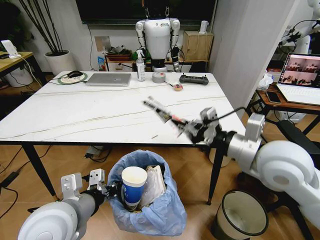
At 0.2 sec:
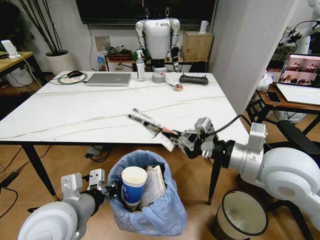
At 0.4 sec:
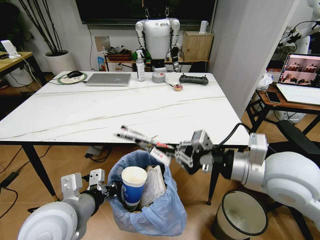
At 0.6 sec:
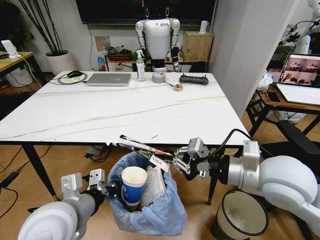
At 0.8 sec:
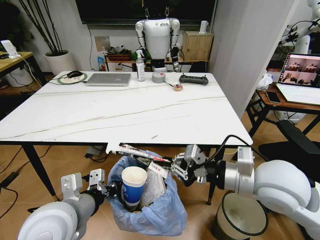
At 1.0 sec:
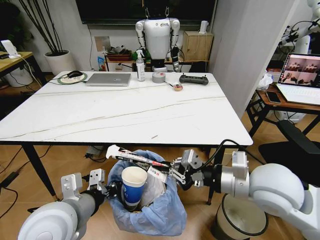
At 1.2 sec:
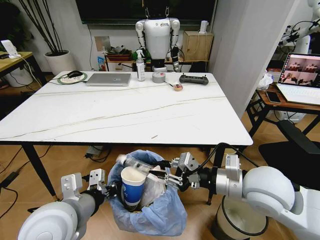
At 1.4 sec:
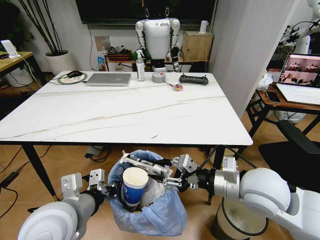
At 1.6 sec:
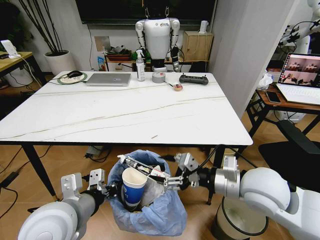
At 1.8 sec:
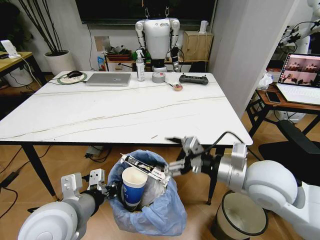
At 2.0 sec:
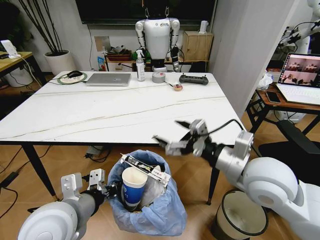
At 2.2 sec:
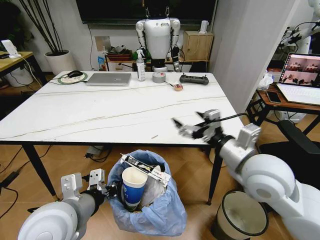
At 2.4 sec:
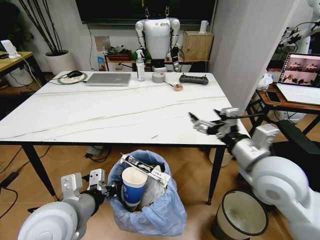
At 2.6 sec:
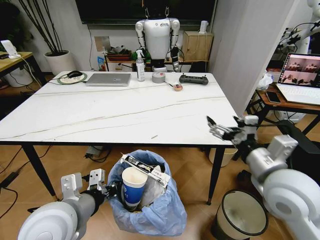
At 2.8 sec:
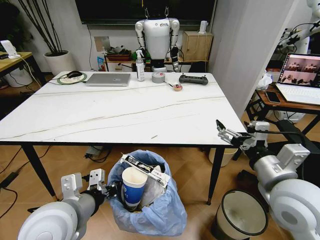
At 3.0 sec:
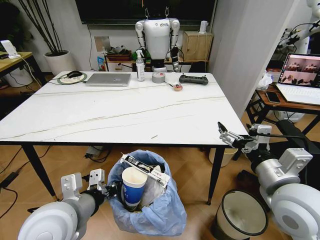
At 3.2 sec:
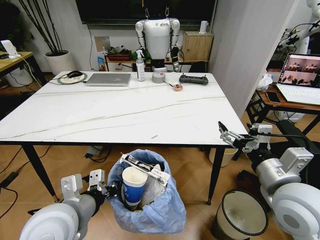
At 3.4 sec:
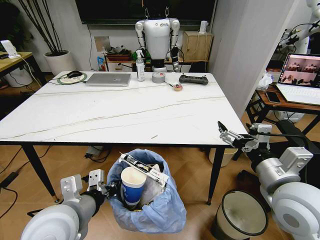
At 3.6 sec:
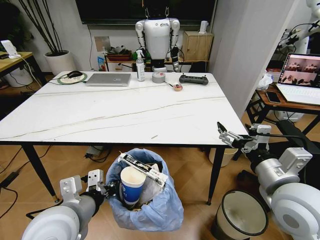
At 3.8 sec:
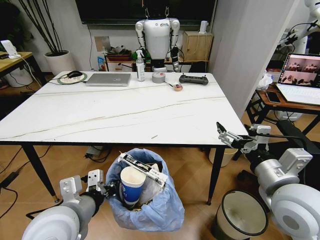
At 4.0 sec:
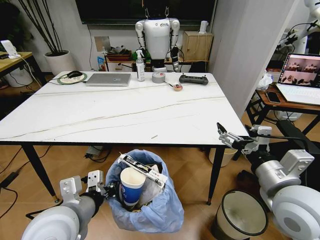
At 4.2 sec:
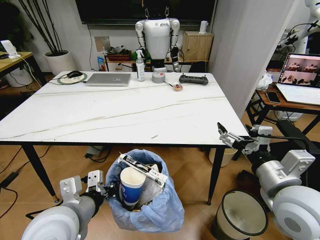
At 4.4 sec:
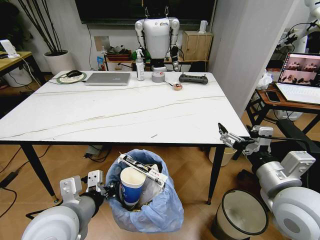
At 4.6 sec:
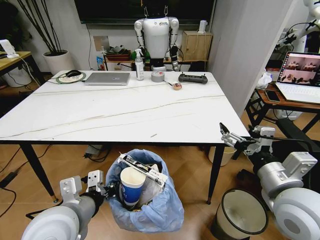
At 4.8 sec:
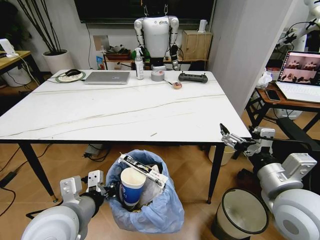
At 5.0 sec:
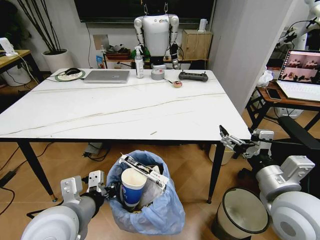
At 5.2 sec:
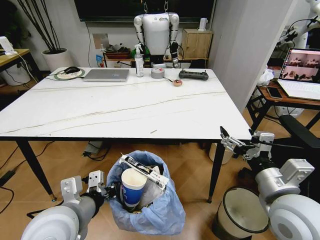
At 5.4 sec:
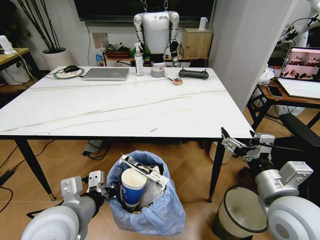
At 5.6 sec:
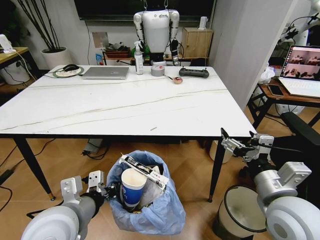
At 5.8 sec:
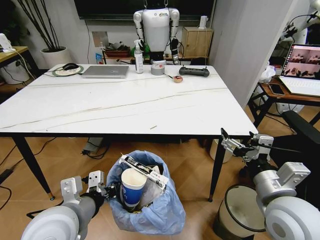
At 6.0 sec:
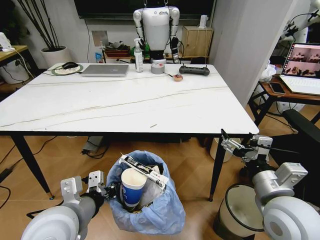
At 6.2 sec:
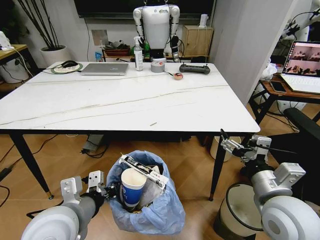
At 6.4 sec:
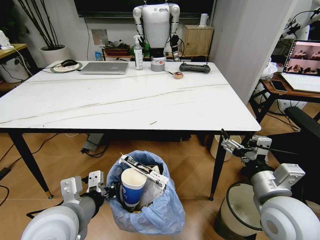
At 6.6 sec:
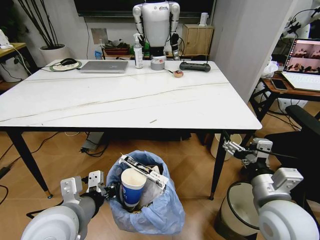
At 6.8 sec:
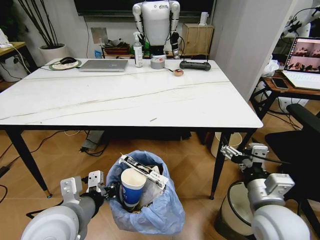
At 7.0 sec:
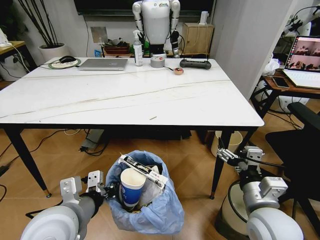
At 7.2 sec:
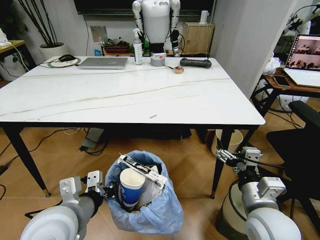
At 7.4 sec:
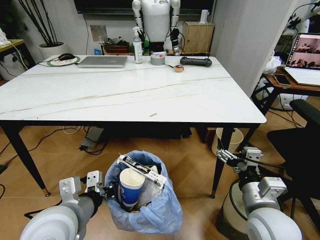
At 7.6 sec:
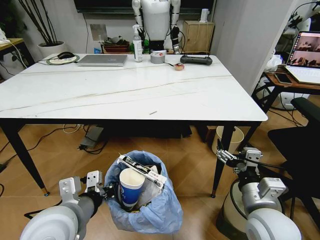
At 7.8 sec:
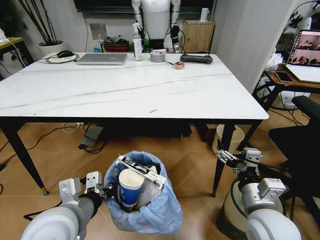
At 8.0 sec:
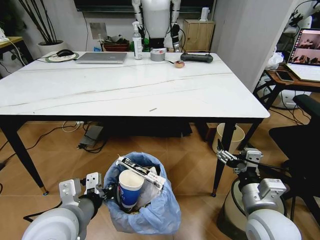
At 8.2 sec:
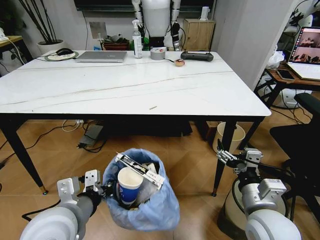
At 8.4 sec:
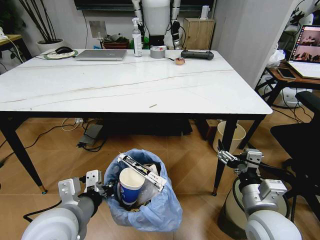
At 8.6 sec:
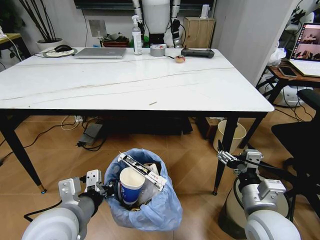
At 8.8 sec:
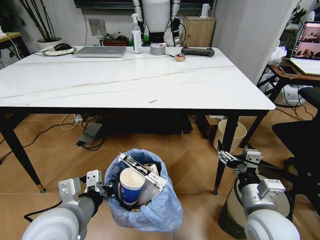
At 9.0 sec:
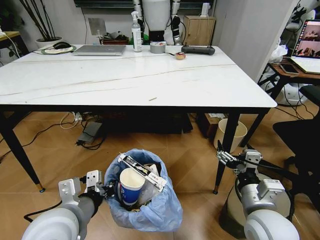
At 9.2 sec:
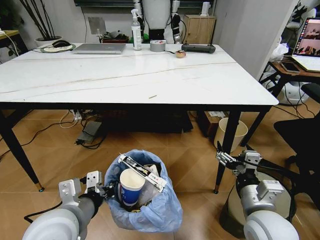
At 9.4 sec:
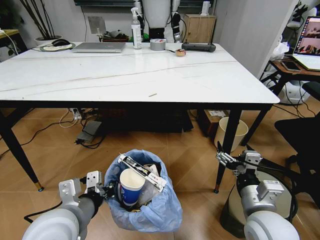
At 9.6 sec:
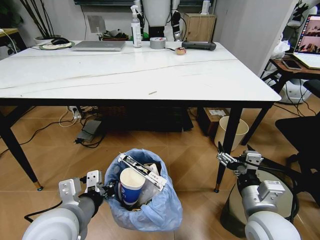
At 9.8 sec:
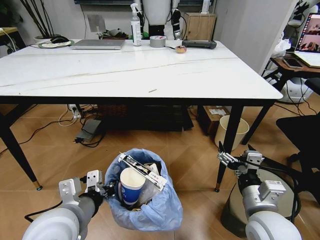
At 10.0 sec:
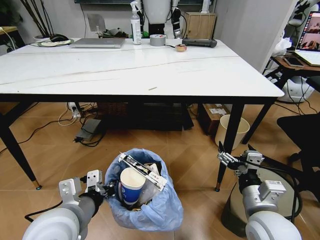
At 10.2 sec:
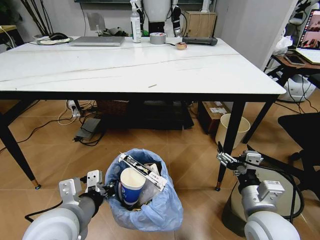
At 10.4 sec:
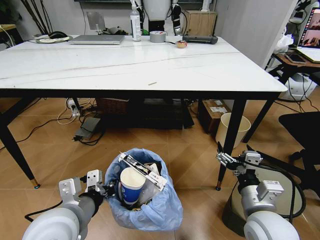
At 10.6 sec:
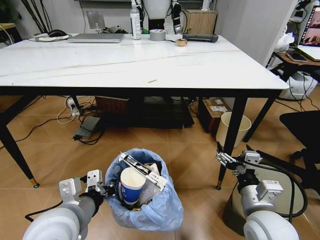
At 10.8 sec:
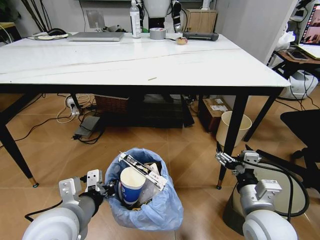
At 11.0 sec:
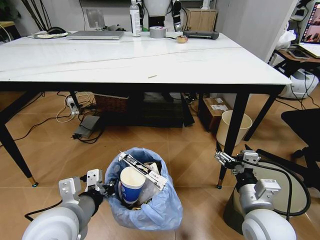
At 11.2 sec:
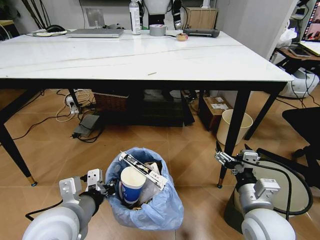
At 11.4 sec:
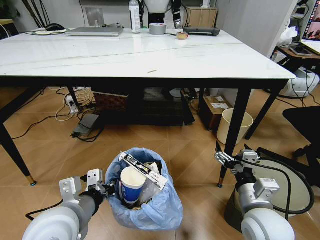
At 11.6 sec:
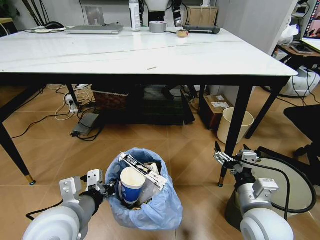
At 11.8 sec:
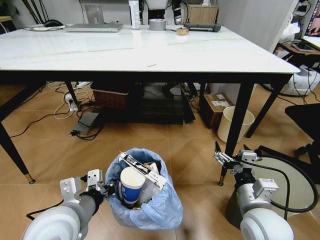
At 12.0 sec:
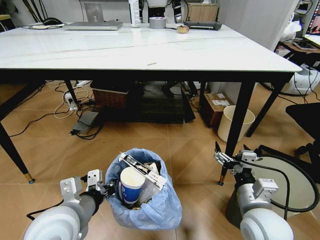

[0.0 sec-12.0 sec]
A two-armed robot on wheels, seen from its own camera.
Task of the whole recording: Pick up the trash bin and place the trash from the table into it.
0.0 sec to 1.6 sec: The right gripper is displaced downward by approximately 5 cm, and opens up.
1.6 sec to 3.0 sec: The right gripper changes place by about 5 cm.
3.0 sec to 4.4 sec: Neither gripper changes place.
6.0 sec to 7.6 sec: The right gripper changes place by approximately 5 cm.

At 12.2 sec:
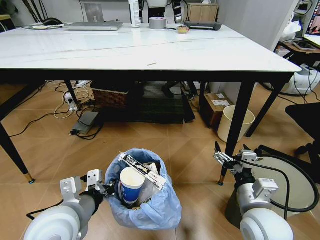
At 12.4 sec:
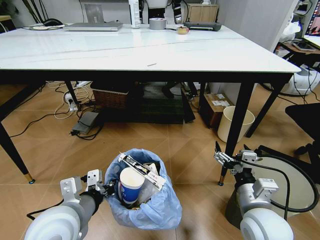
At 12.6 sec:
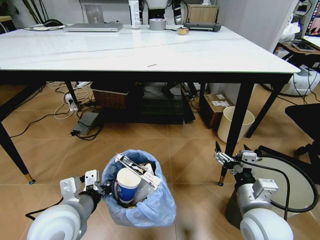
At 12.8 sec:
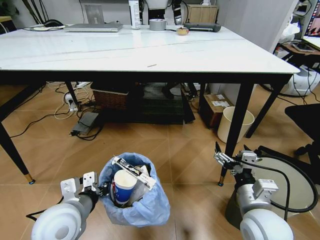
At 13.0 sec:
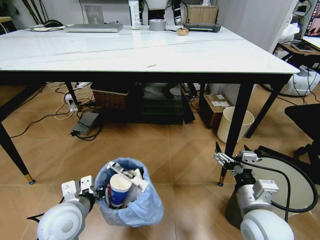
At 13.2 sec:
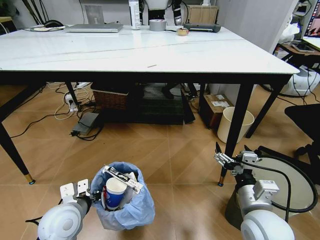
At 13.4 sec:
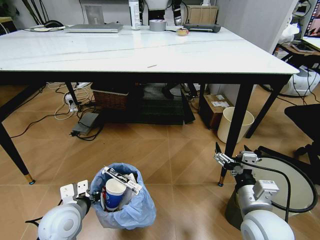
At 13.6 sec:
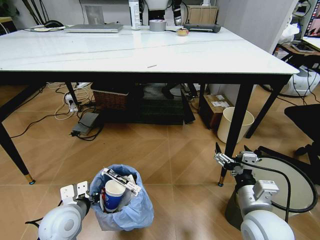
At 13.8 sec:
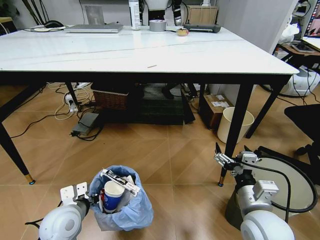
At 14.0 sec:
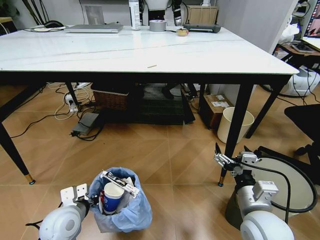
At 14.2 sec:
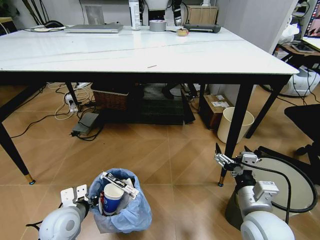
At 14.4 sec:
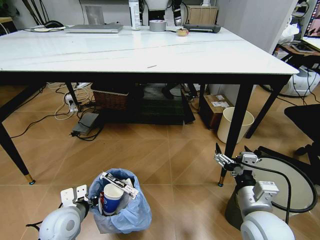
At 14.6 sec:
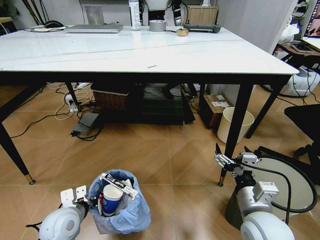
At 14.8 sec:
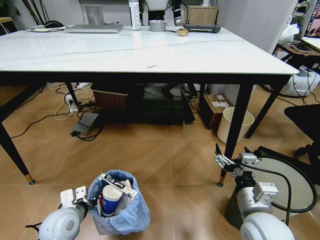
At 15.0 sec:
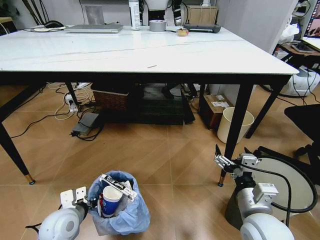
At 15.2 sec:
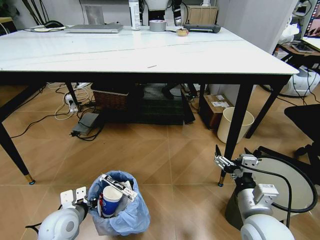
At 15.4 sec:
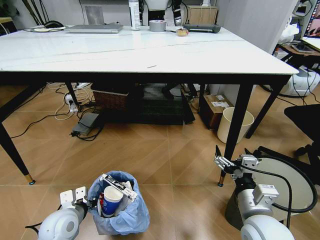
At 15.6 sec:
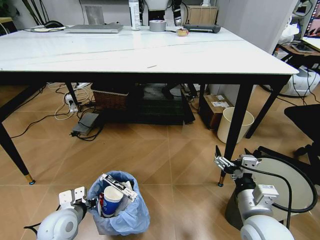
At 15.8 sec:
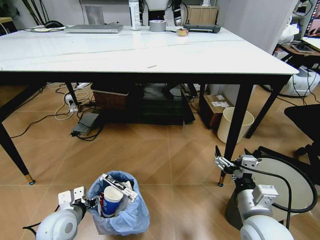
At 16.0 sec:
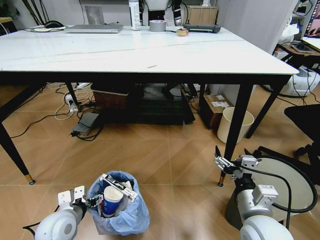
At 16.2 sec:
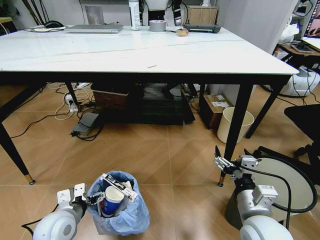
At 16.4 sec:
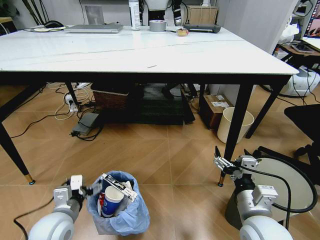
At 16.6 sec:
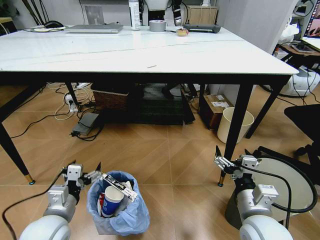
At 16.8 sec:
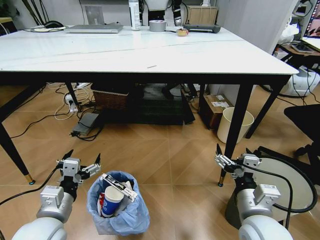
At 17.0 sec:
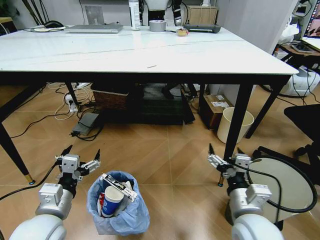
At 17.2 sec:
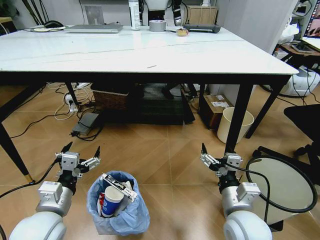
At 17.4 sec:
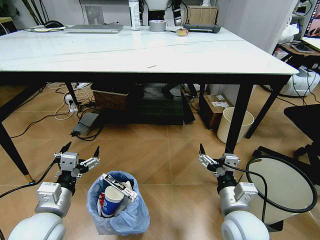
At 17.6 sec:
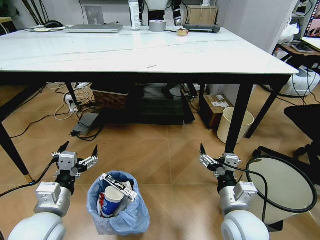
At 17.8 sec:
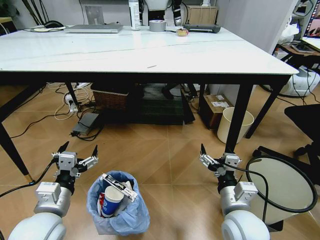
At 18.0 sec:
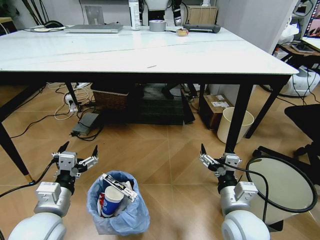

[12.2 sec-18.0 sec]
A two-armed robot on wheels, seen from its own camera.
Task of the whole recording: Pick up the trash bin and place the trash from the table into it.
12.2 sec to 13.6 sec: The left gripper shifts approximately 10 cm downward and to the left.
13.6 sec to 15.0 sec: The grippers stay close to where they were, moving slightly.
15.0 sec to 16.6 sec: The left gripper shifts about 5 cm upward, and opens.
16.6 sec to 18.0 sec: The grippers stay close to where they were, moving slightly.
